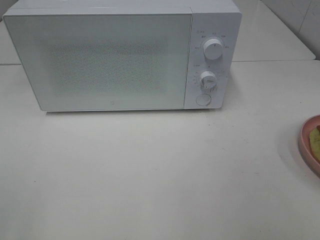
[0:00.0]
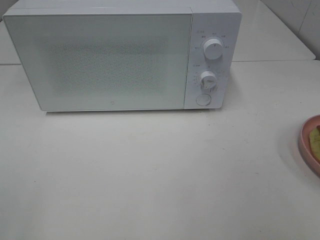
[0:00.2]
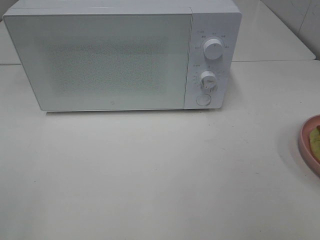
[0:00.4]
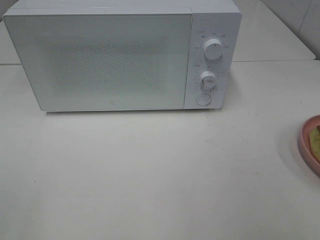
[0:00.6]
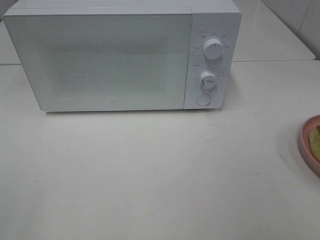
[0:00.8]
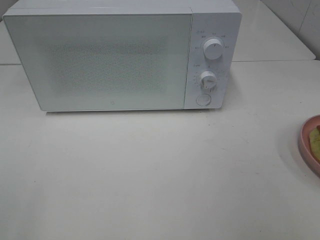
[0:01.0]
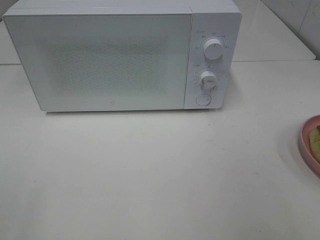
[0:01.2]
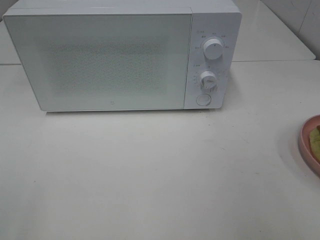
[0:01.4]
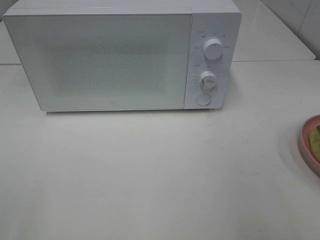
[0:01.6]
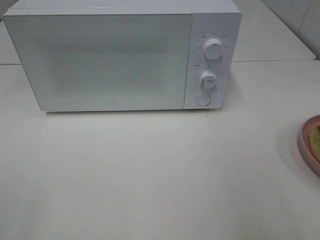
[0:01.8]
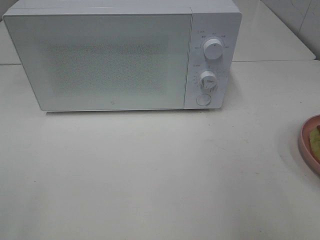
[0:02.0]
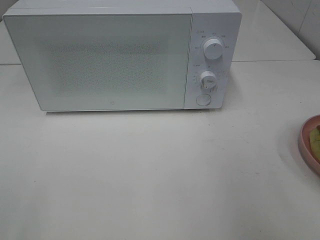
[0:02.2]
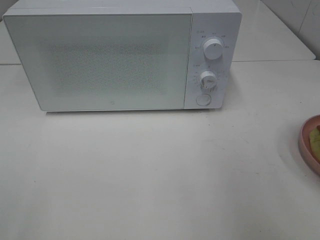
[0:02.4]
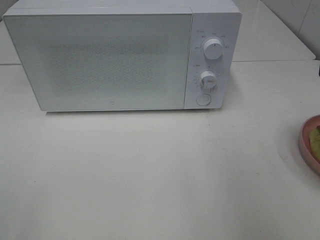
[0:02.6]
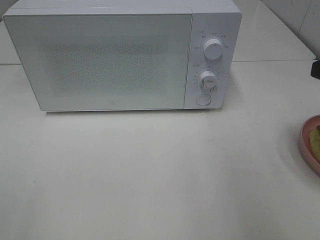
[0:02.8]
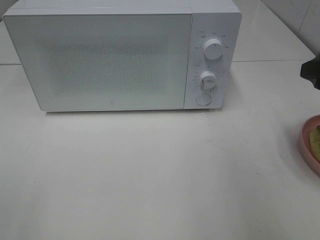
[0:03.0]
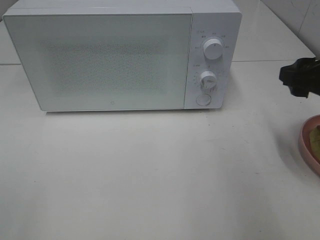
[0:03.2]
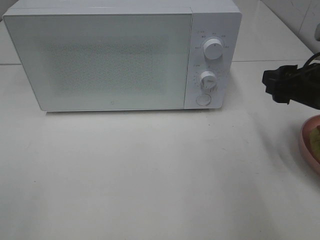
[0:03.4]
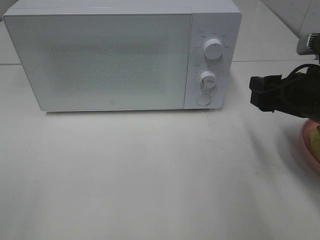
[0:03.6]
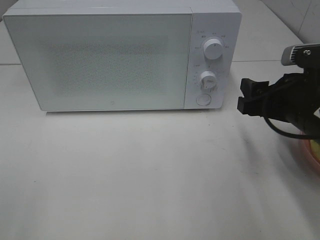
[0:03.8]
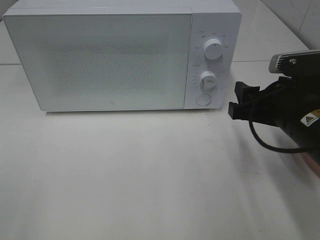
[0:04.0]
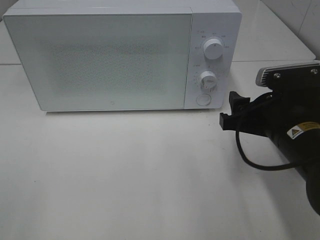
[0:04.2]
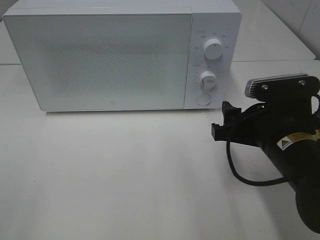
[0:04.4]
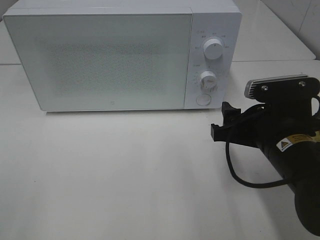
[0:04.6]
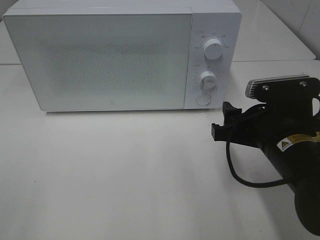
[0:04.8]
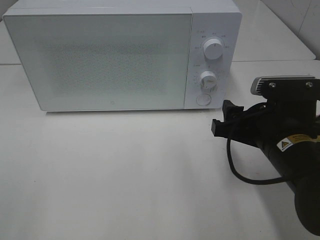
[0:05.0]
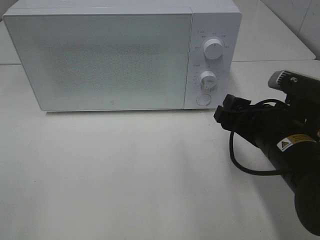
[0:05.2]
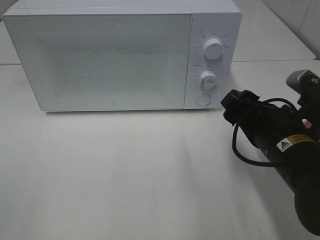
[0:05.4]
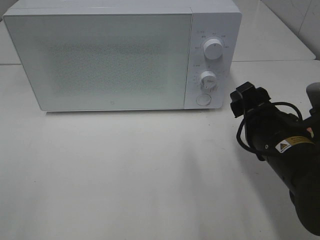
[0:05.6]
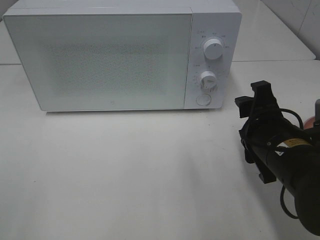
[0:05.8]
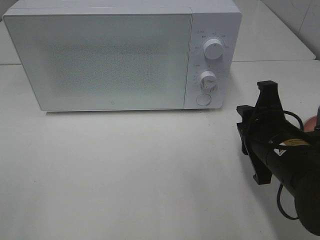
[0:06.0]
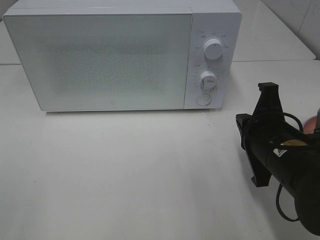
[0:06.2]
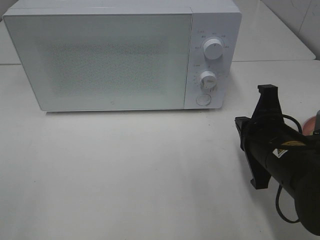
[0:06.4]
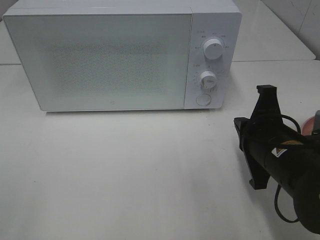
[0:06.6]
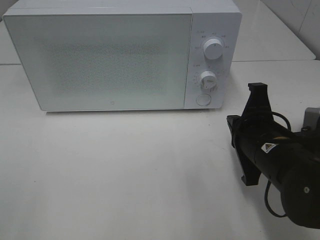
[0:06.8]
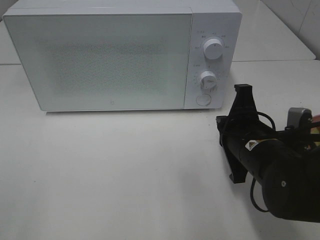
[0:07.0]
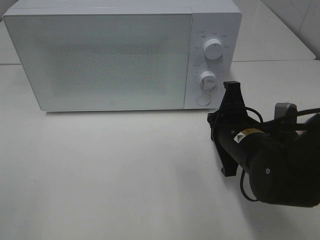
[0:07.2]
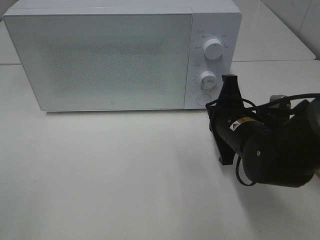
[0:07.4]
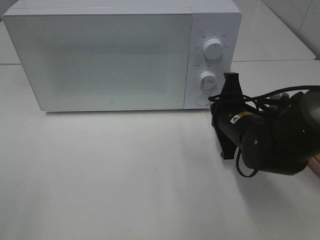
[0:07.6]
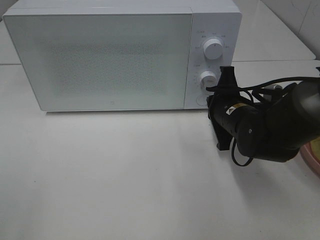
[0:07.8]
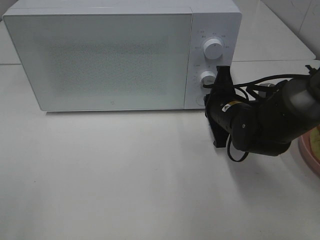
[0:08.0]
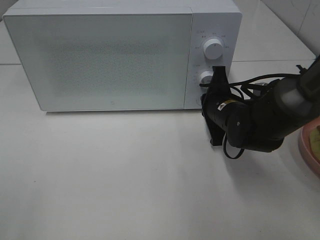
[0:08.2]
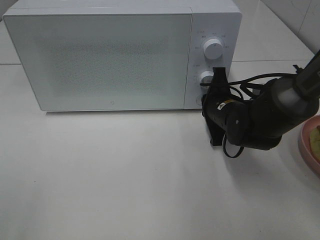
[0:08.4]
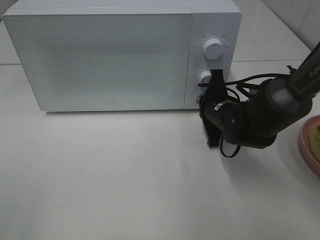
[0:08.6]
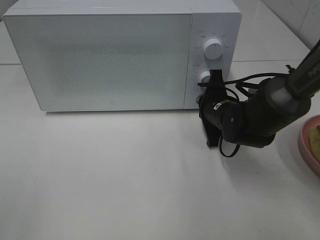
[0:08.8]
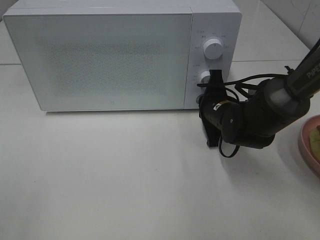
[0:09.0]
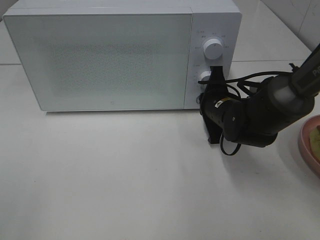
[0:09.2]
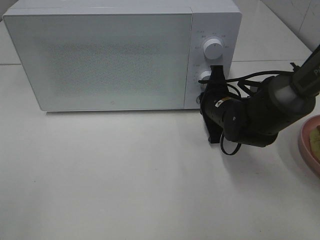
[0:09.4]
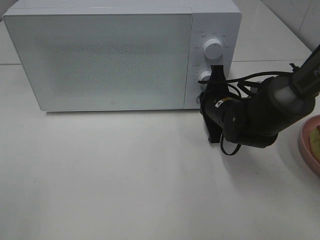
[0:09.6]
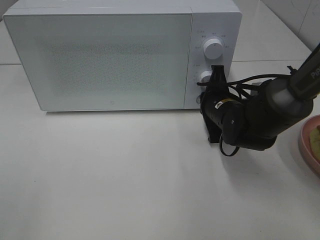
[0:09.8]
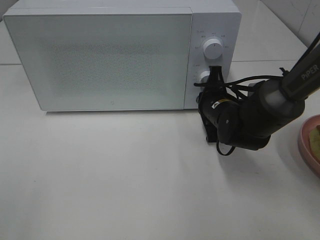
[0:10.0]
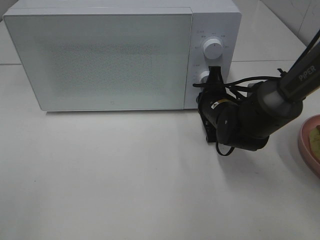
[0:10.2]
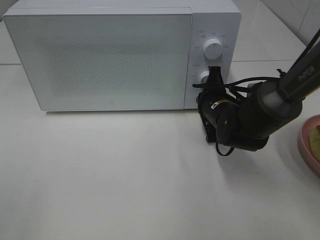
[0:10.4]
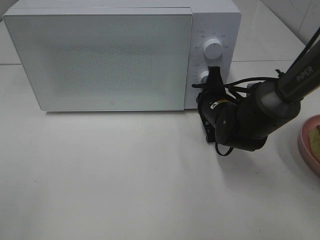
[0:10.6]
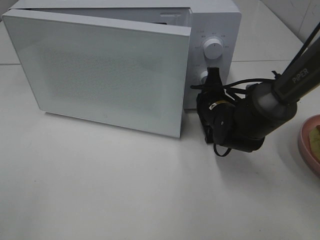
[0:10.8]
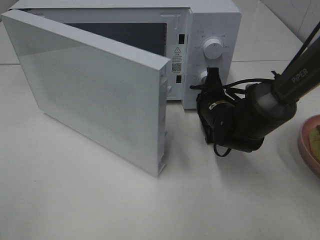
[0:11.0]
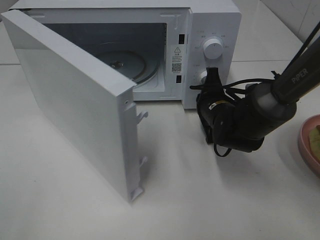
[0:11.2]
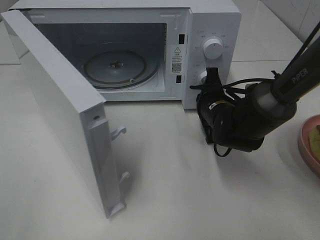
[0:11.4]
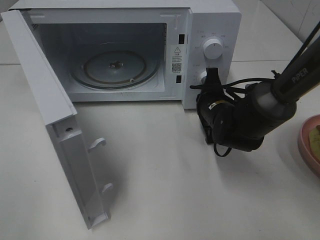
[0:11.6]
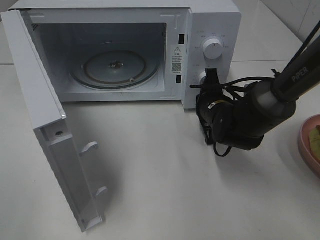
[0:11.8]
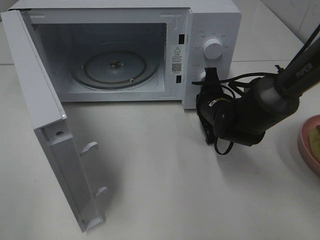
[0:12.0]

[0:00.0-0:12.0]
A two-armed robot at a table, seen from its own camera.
Task of the whole recording: Heat Sandwich.
0:01.6 to 0:03.0: The right gripper goes approximately 15 cm forward.
0:03.0 to 0:04.4: The right gripper shifts about 15 cm to the left and downward.
0:04.4 to 0:06.0: The right gripper closes up.
0:06.0 to 0:07.6: The right gripper shifts approximately 10 cm forward, and closes its fingers.
0:07.6 to 0:09.0: The right gripper is displaced forward by roughly 5 cm.
0:09.0 to 0:10.4: There are only small adjustments of the grippers.

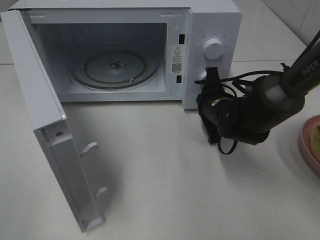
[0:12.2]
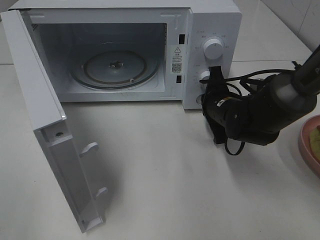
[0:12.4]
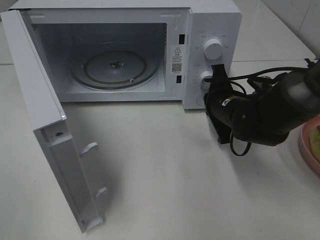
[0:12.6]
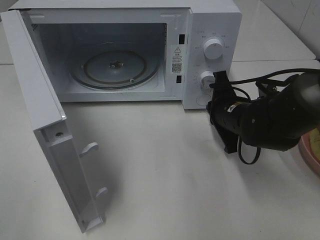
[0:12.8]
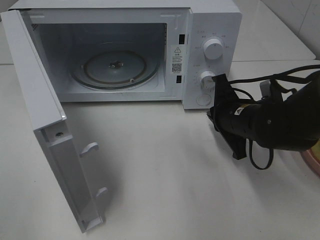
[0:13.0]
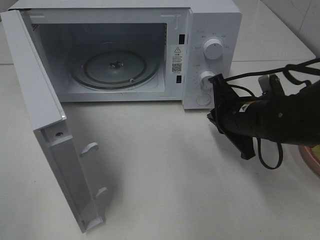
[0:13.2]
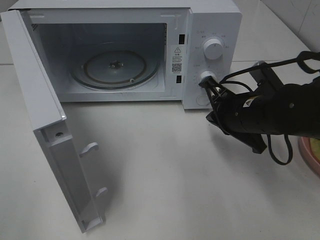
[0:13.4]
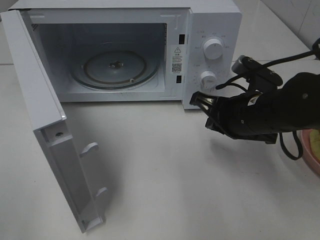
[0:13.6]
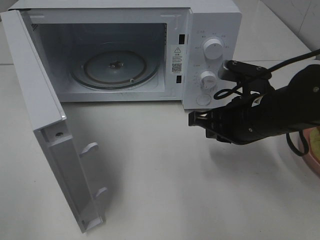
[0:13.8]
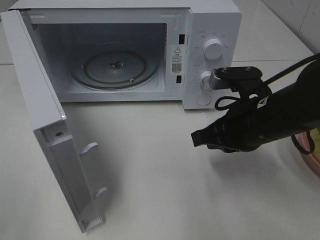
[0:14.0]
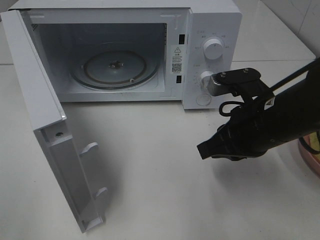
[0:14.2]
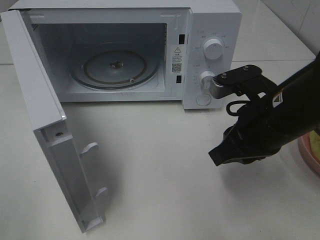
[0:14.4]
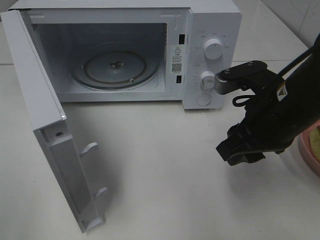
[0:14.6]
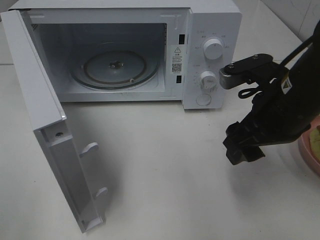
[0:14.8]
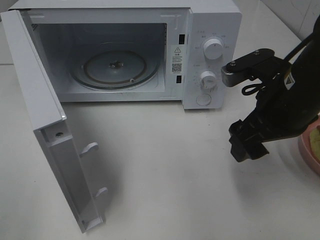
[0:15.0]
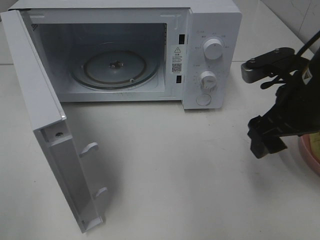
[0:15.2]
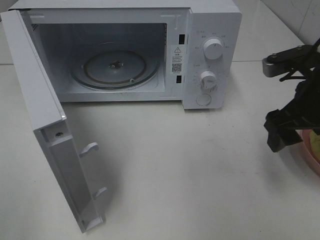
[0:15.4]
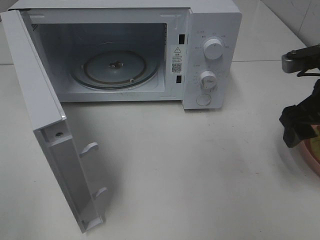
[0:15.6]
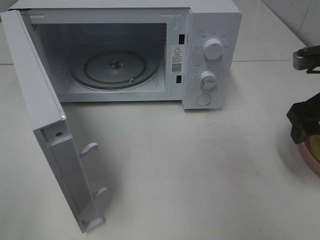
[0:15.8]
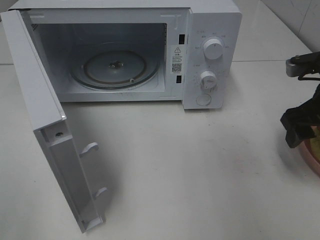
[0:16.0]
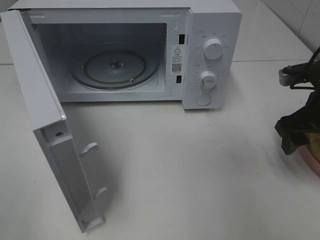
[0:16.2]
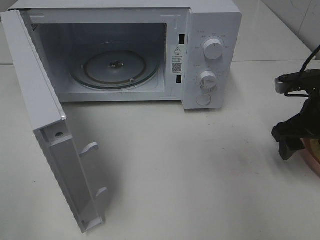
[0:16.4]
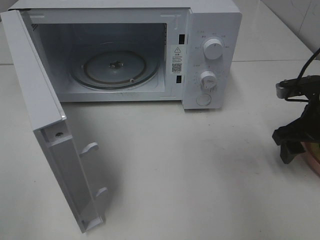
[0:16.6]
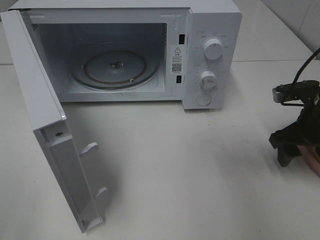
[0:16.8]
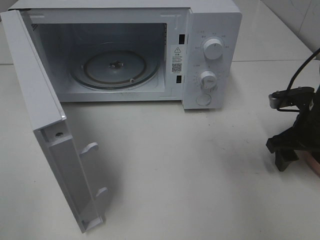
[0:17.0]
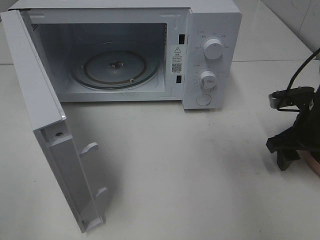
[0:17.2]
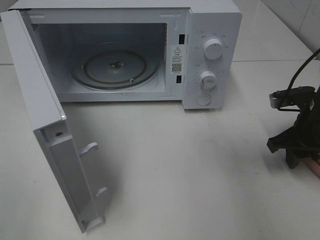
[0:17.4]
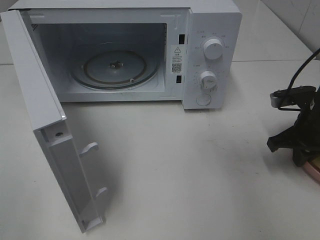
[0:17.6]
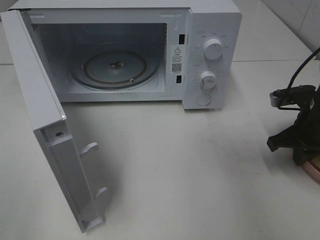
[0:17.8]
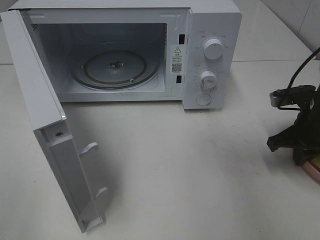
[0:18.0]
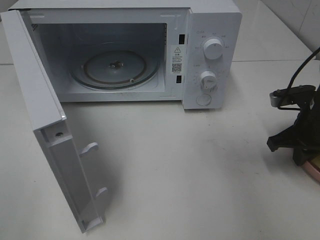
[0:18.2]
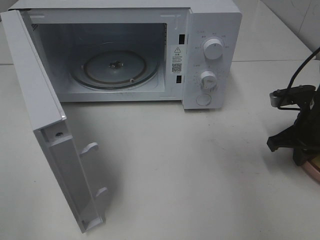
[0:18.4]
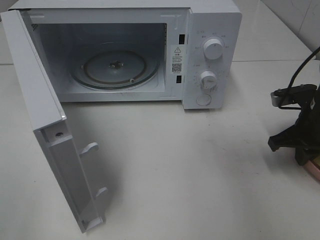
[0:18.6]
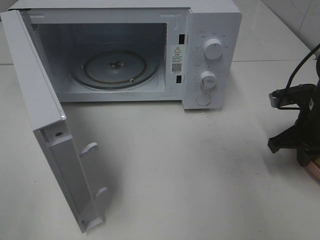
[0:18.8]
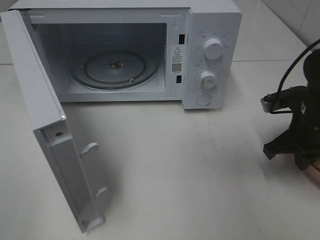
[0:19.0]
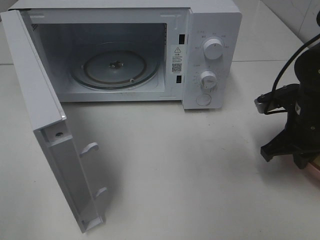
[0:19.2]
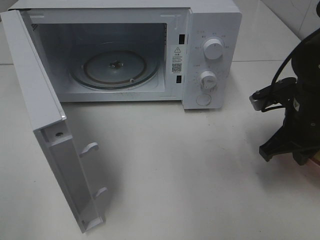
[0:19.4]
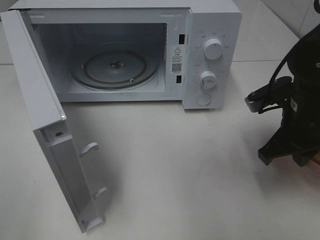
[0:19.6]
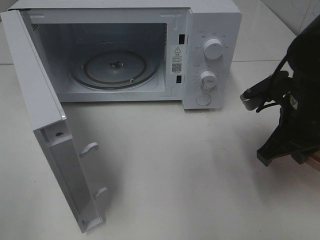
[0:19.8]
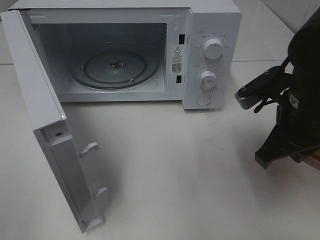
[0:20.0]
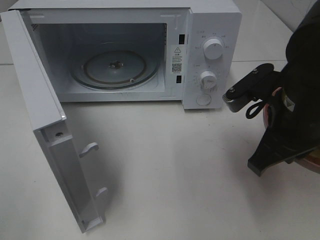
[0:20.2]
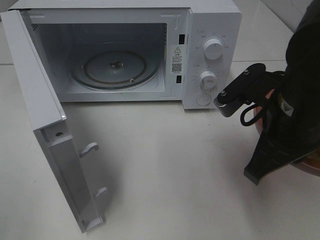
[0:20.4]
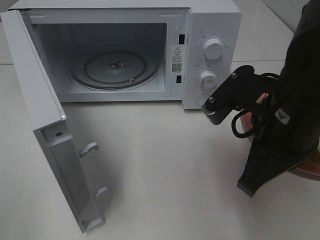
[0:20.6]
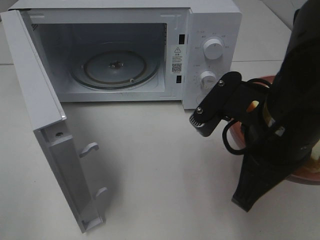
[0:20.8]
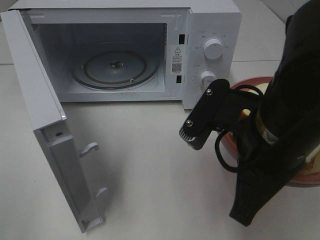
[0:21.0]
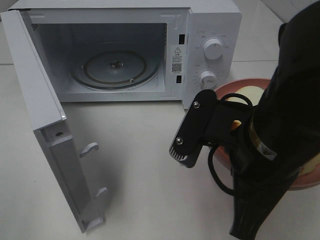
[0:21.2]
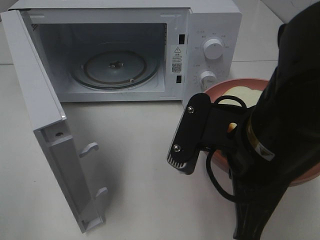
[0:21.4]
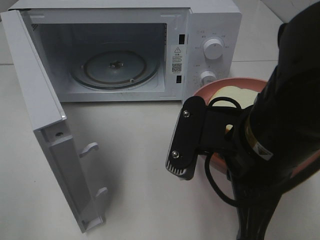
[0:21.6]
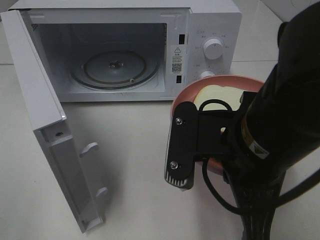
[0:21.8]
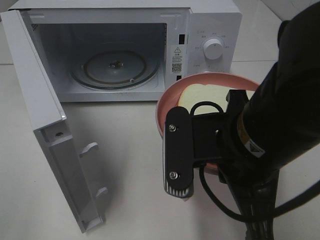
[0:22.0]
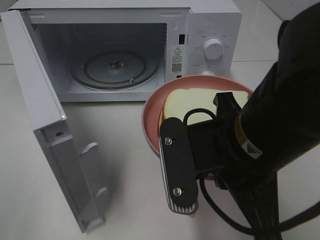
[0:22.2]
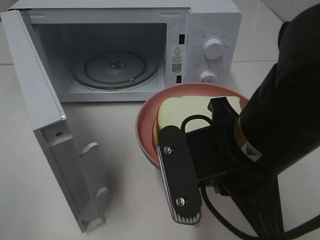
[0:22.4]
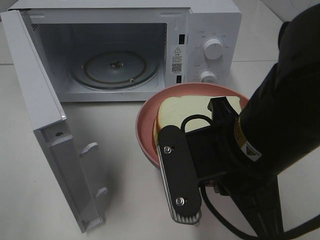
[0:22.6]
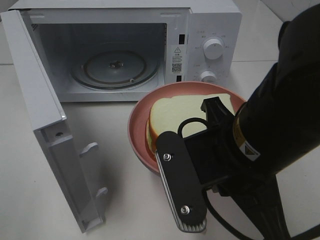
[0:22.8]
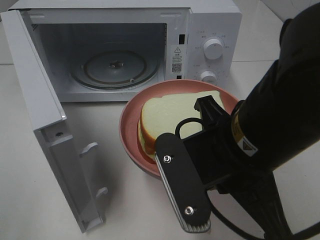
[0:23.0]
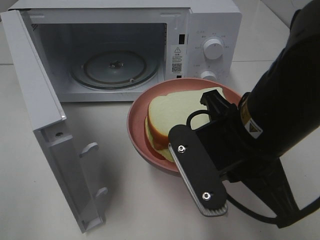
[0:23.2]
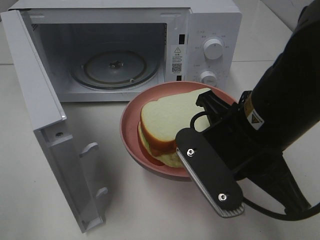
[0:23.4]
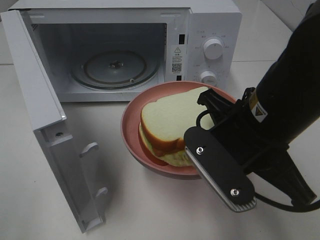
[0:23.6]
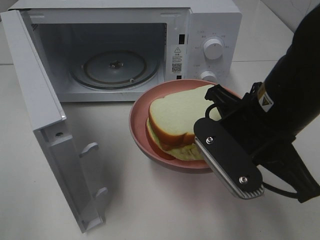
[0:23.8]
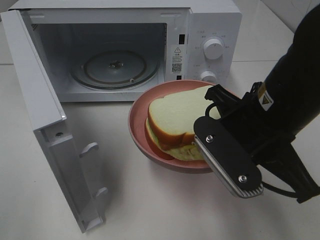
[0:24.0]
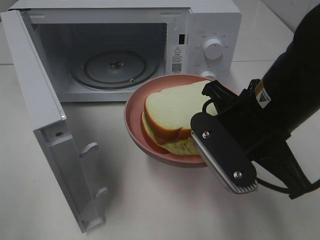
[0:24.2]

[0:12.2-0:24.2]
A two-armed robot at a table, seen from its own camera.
Task of the whole recording: Heat Sandwich.
Step, 0:13.0 to 0:19.4: Right hand: grab the plate with the sandwich.
0:12.2 to 0:13.8: The right gripper heads backward and upward, covering approximately 15 cm.
0:13.8 to 0:15.2: The right gripper is displaced upward by roughly 5 cm, and opens its fingers.
0:15.2 to 0:16.6: The right gripper travels to the right and downward by approximately 10 cm.
0:16.6 to 0:18.2: The right gripper closes up.
0:18.2 to 0:19.8: The right gripper travels to the left and upward by approximately 10 cm.
0:19.8 to 0:21.2: The right gripper travels backward and to the left by about 15 cm.
0:22.6 to 0:24.2: The right gripper is displaced forward by approximately 5 cm.
